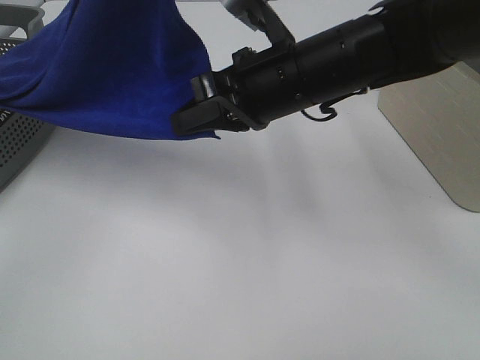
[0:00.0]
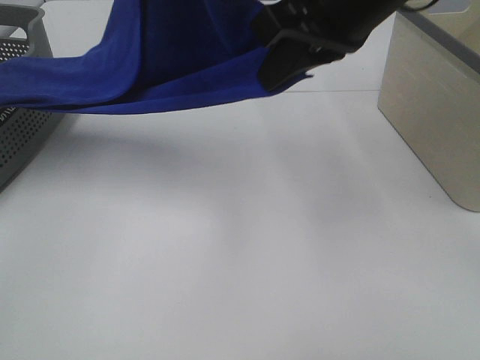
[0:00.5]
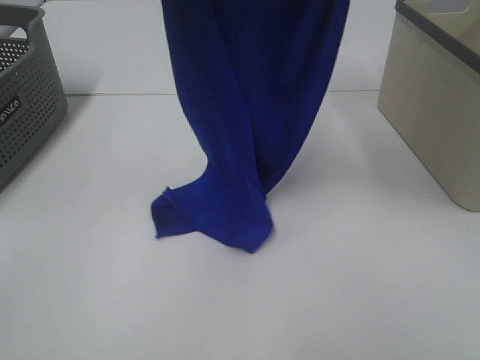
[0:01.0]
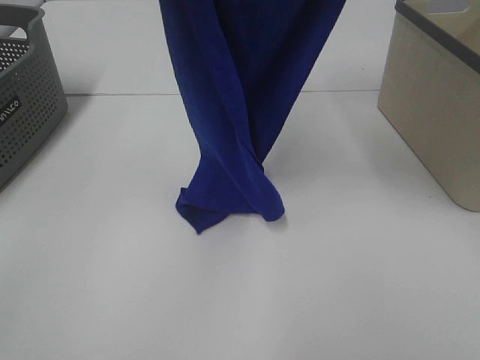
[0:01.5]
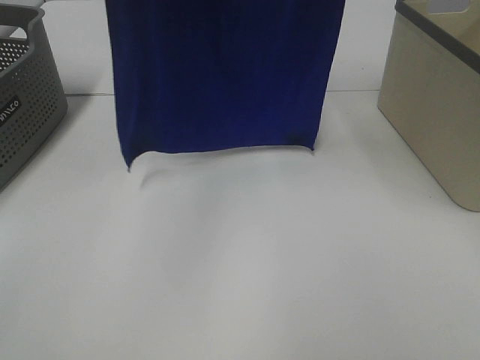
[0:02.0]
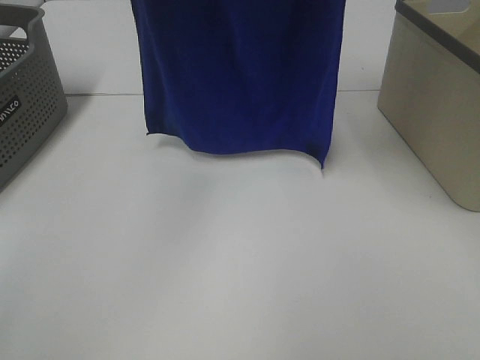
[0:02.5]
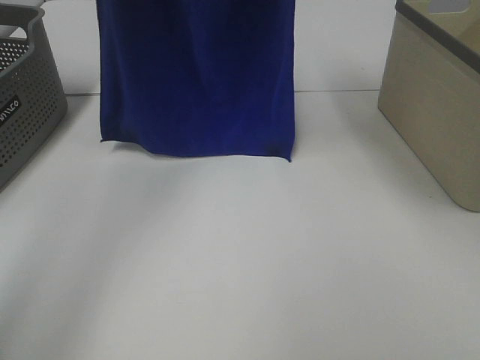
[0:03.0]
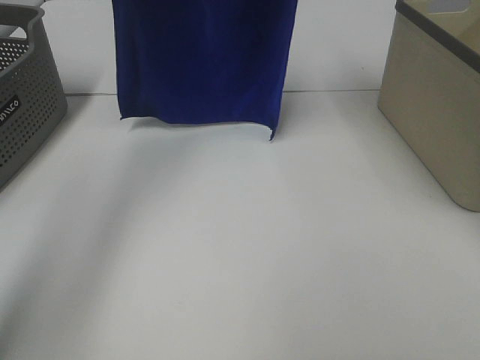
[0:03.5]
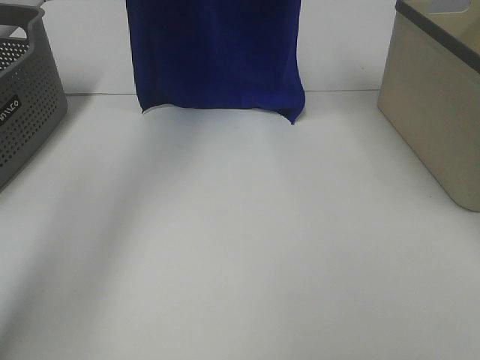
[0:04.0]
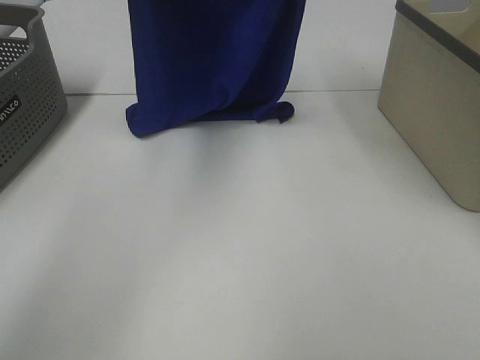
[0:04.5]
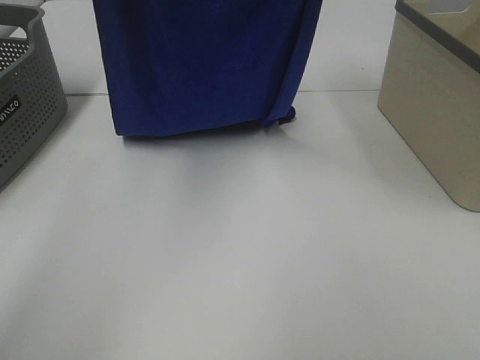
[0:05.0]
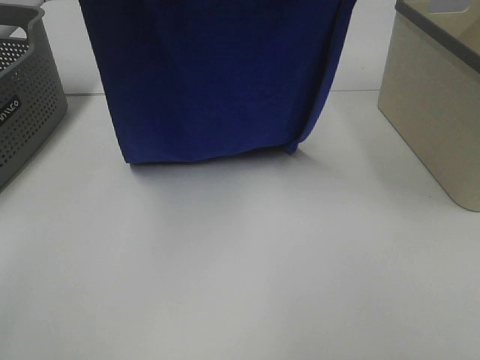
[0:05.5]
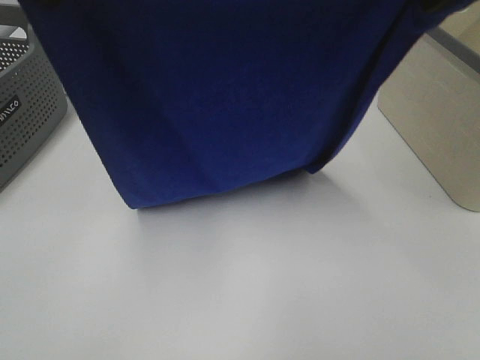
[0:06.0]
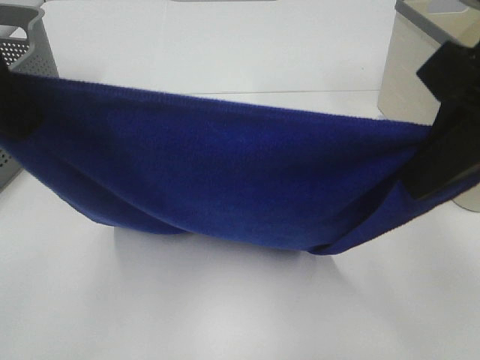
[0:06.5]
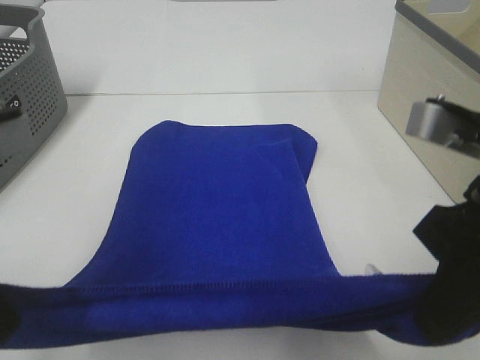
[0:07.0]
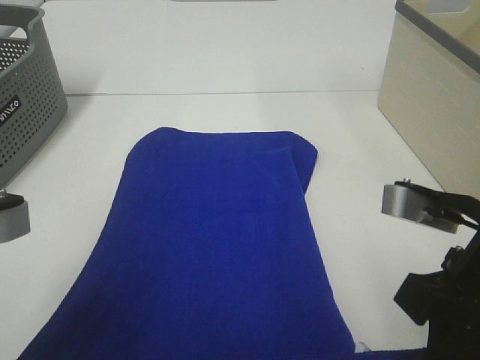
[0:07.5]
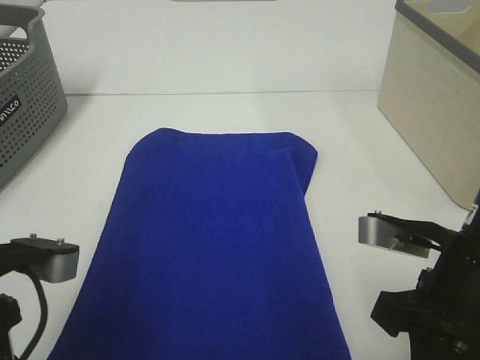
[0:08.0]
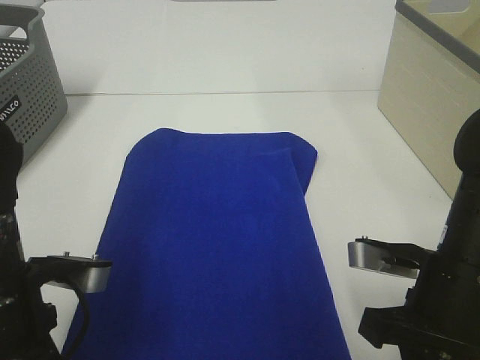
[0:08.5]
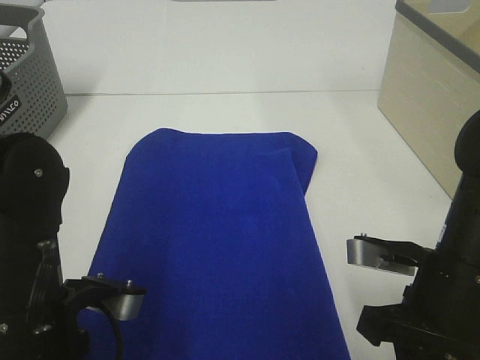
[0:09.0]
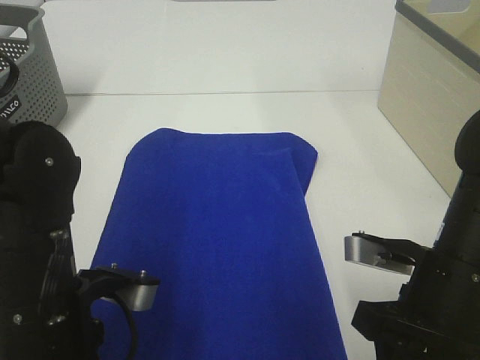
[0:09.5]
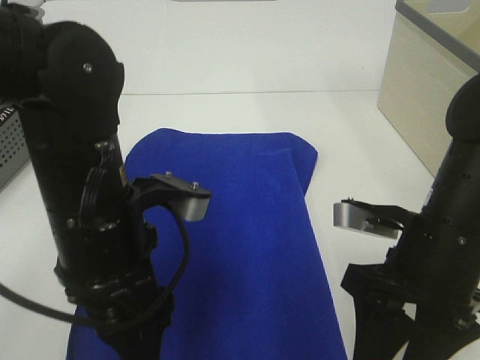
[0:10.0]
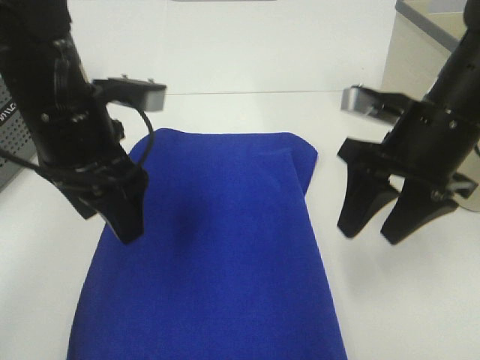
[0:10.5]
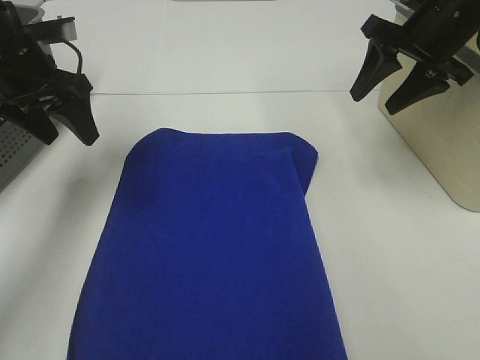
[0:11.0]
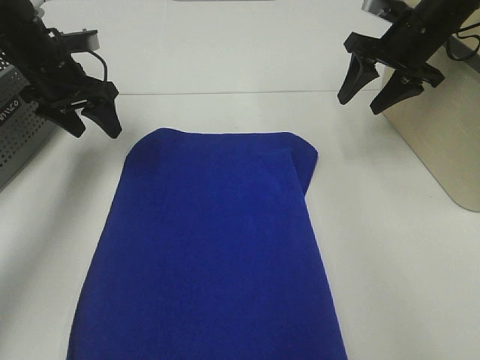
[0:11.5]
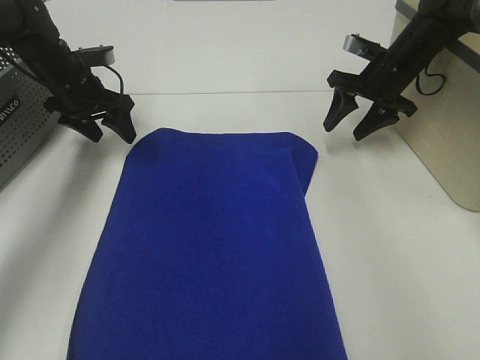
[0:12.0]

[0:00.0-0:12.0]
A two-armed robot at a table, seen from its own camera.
Task of the whole recording: Remove the towel and place it.
Step, 0:00.0 to 0:05.0: Left hand: spread the blue towel flat on the table.
Step, 0:00.0 to 0:05.0: Right hand: spread the blue towel flat on the table.
Step, 0:05.5 to 0:11.0: Left hand:adjust the blue towel.
Step, 0:05.5 to 0:11.5: Right hand:adjust the blue towel.
0:00.0 to 0:02.0: The right gripper is displaced upward by approximately 30 cm. The left gripper moves upward, approximately 5 cm.
0:02.0 to 0:04.0: The right gripper is displaced forward and downward by about 15 cm. Meanwhile the left gripper goes approximately 15 cm forward.
0:04.0 to 0:06.0: The grippers both shift backward by roughly 25 cm.
0:06.0 to 0:08.0: The left gripper heads downward and backward, covering roughly 25 cm, while the right gripper shifts some 25 cm downward.
0:08.0 to 0:10.0: The right gripper opens; the left gripper heads to the right and forward, covering roughly 10 cm, and opens.
0:10.0 to 0:12.0: The left gripper moves forward and to the left, approximately 35 cm. The right gripper goes roughly 30 cm forward.

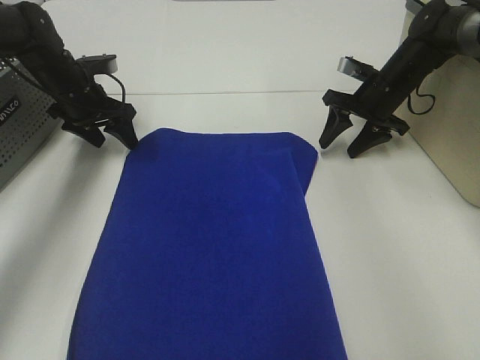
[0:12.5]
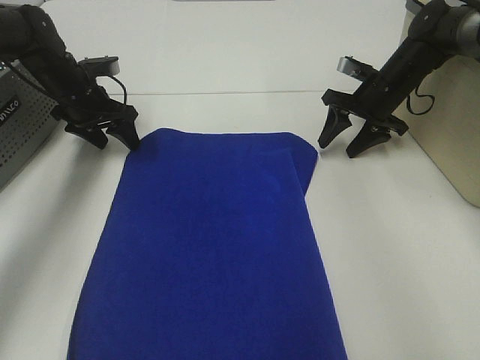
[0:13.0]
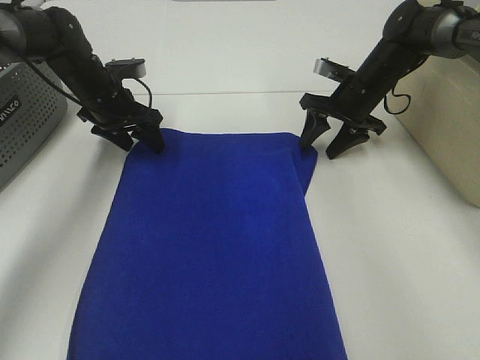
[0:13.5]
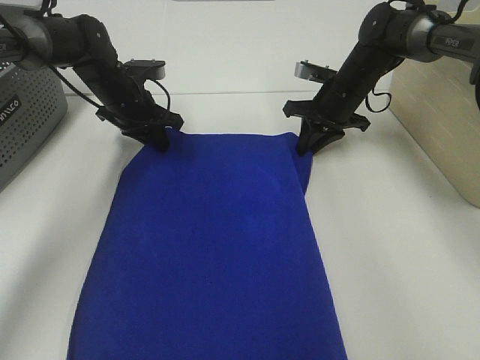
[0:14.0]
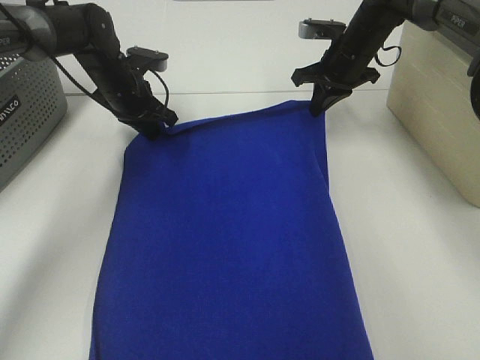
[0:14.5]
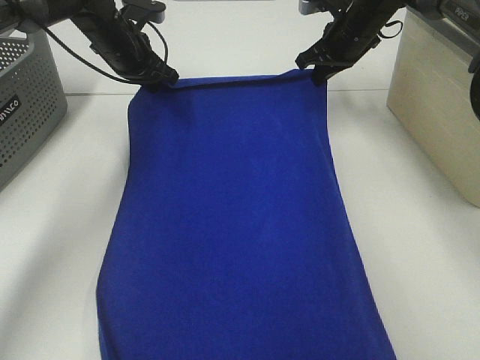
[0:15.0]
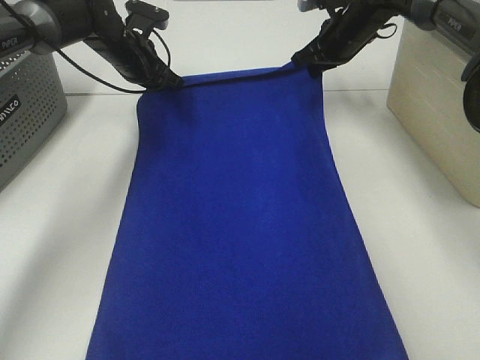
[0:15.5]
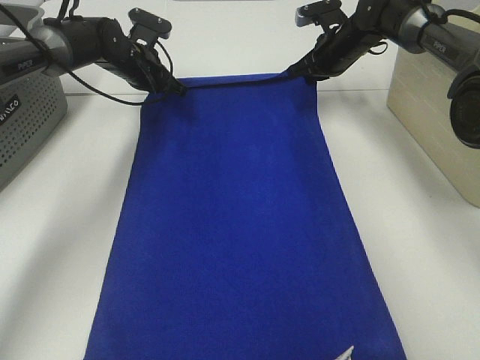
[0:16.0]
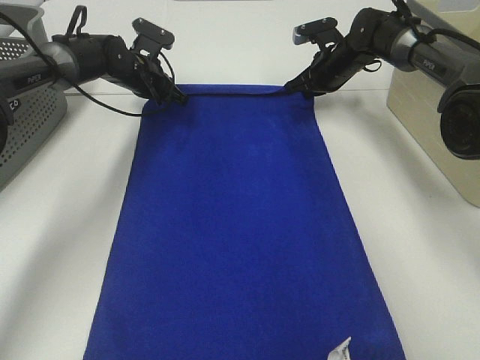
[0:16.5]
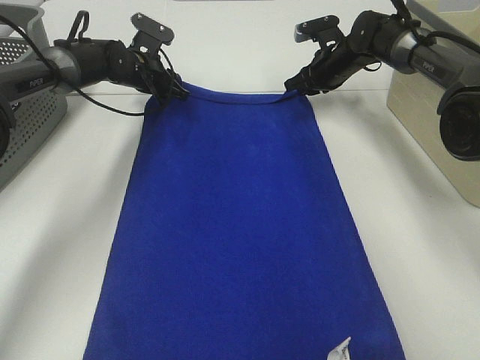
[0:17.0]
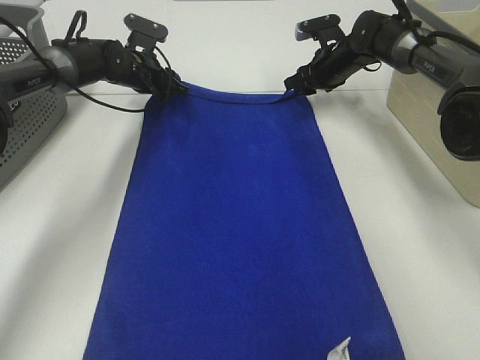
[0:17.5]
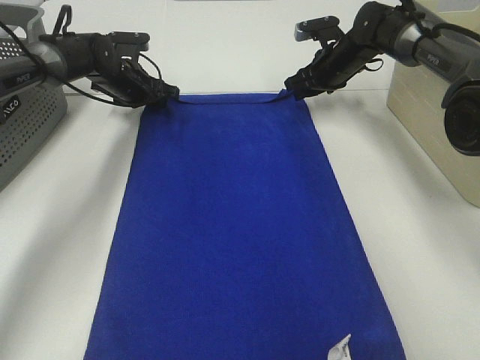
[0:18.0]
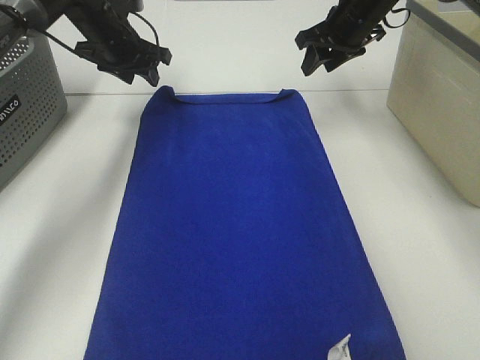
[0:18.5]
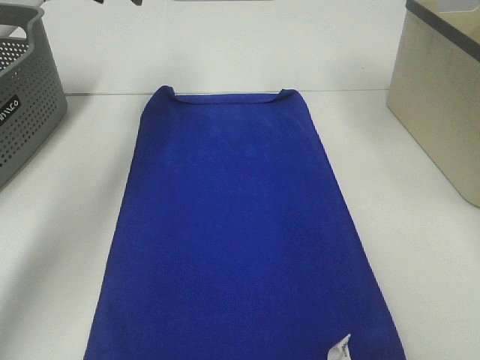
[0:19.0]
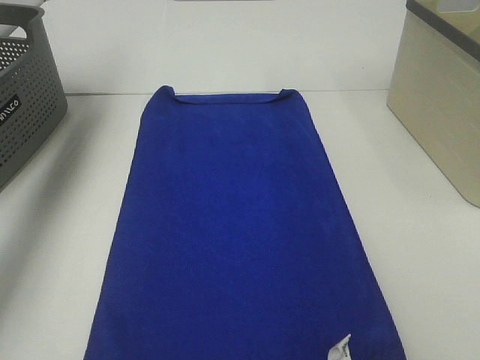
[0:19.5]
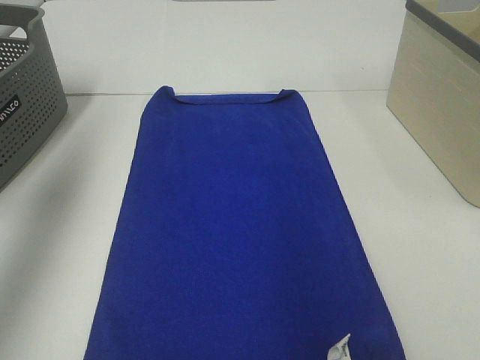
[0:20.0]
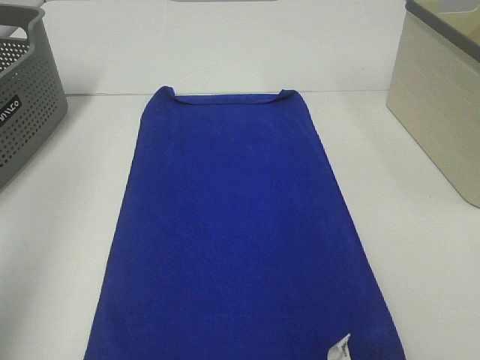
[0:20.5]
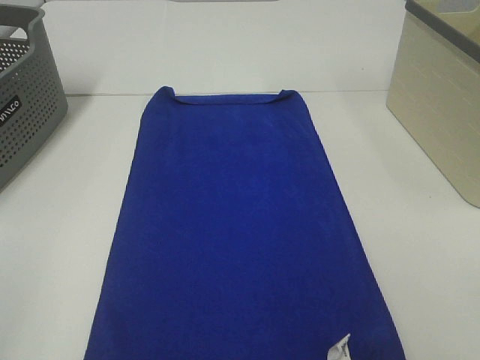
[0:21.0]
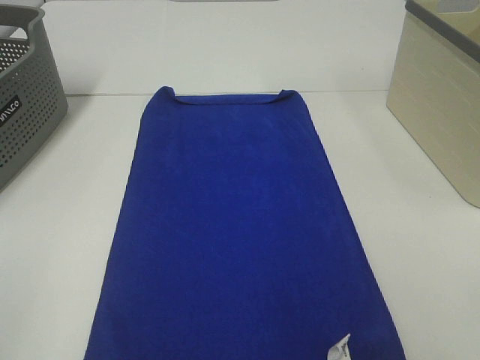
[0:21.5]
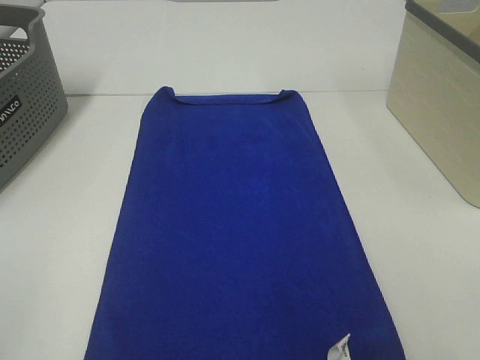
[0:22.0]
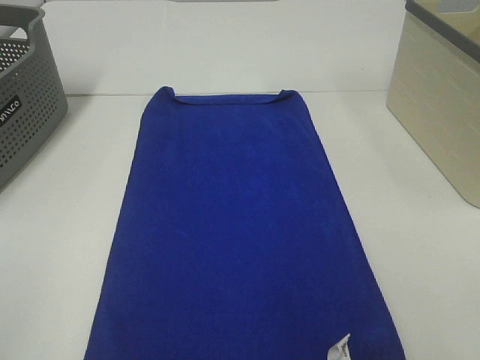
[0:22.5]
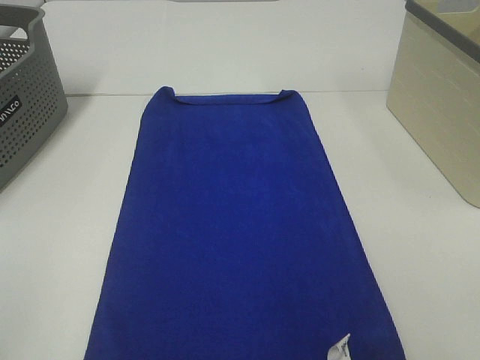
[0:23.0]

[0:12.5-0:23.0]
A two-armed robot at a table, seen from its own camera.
Task of the whole recording: Remove the towel and place it.
0:12.5 to 0:14.5: The right gripper shifts roughly 10 cm to the left and upward, and closes; the left gripper is displaced to the right by about 5 cm, and closes its fingers.
0:14.5 to 0:16.5: The left gripper goes approximately 5 cm forward, and reaches some 5 cm upward, then returns. Meanwhile the right gripper heads downward and forward, covering about 5 cm.
0:16.5 to 0:19.0: Both grippers move upward, some 25 cm. The right gripper opens; the left gripper opens its fingers.
0:19.0 to 0:21.0: The left gripper moves backward, some 50 cm.

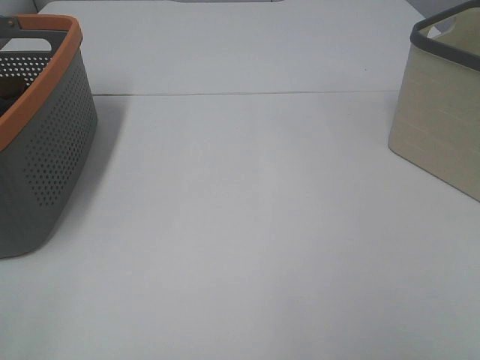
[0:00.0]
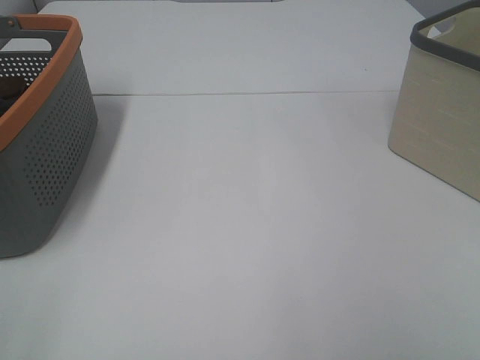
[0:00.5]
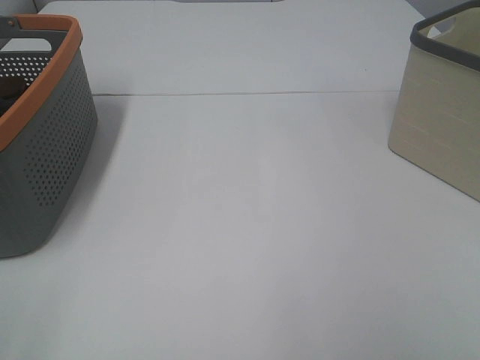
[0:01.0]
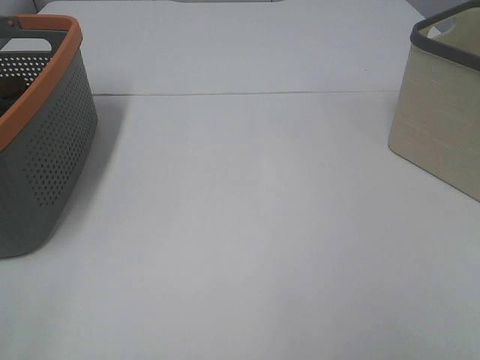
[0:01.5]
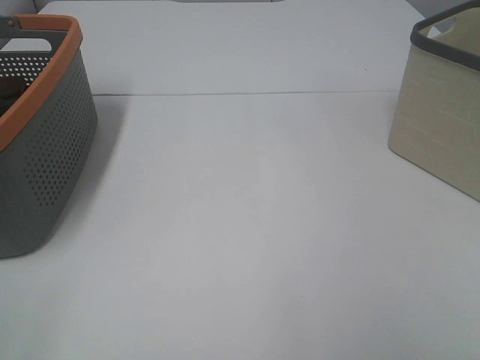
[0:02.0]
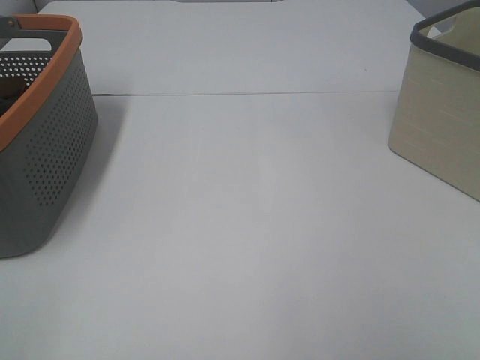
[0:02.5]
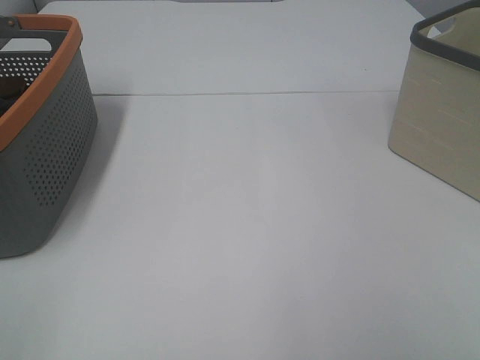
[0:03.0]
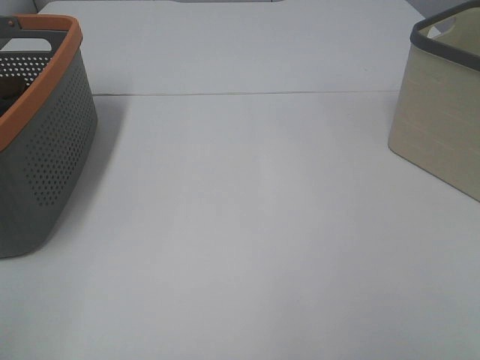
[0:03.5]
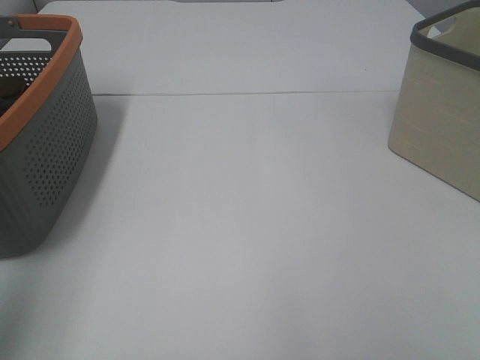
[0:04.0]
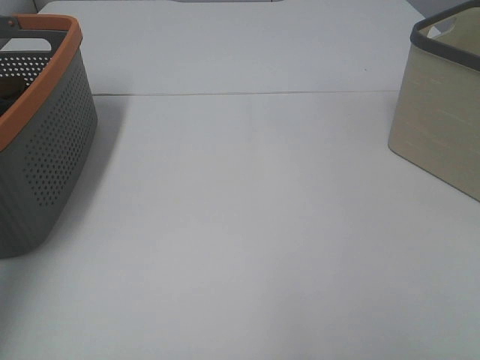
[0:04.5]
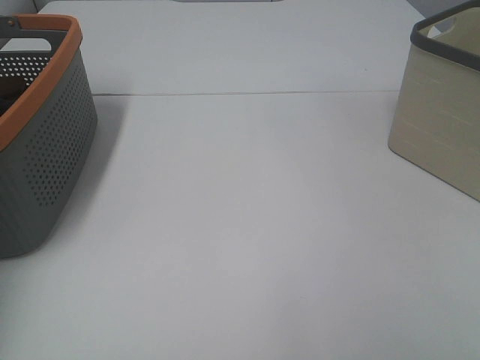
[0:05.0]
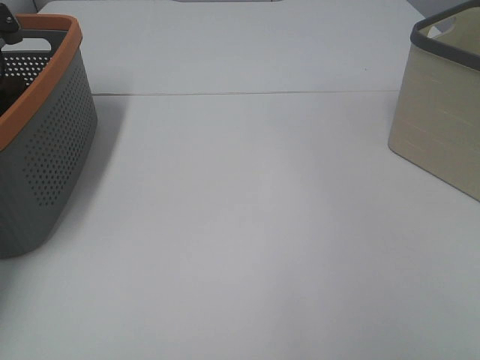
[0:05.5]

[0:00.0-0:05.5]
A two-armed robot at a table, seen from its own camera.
Task of the whole recording: Remove the towel and place it.
0:00.0 to 0:02.0: Neither gripper changes place.
0:03.5 to 0:05.5: The left gripper goes some 50 cm forward.